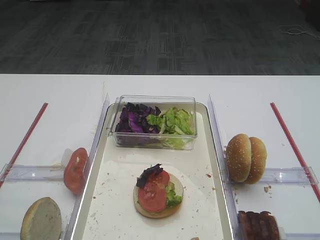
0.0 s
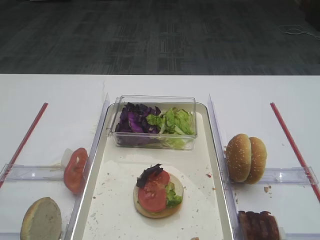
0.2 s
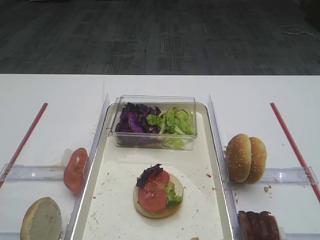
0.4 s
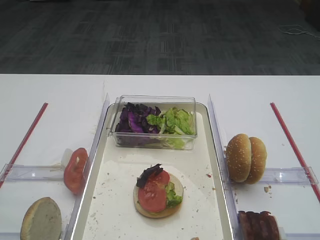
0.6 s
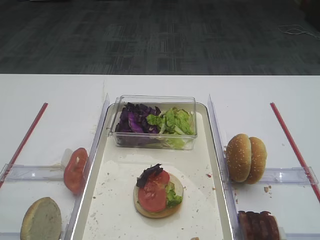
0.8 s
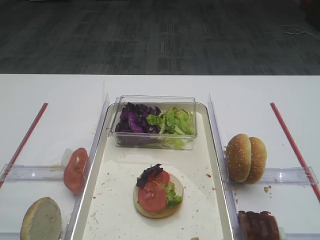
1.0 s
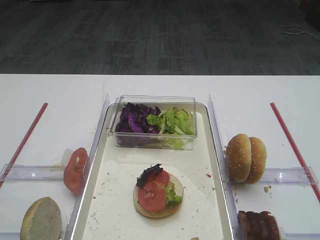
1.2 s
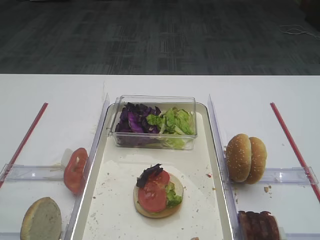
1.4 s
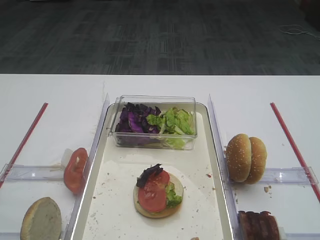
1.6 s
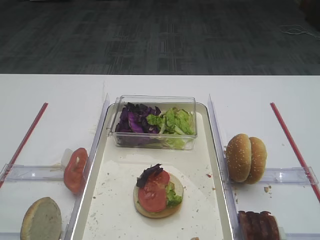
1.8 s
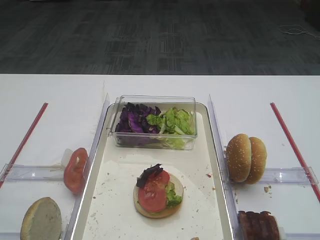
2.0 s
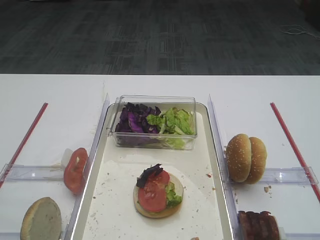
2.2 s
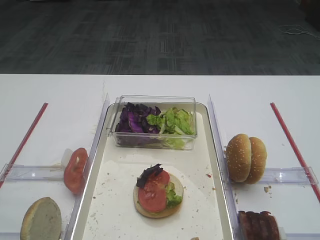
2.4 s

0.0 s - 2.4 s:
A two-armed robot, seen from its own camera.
0.0 s - 2.4 s: Neither gripper changes place.

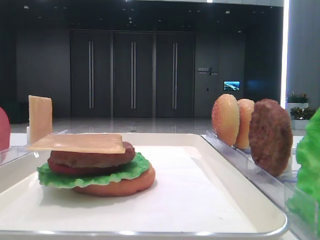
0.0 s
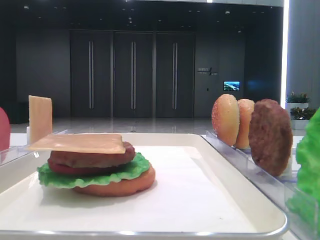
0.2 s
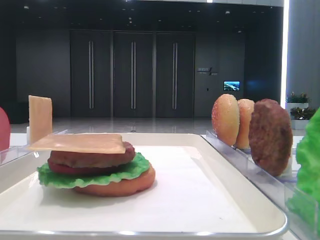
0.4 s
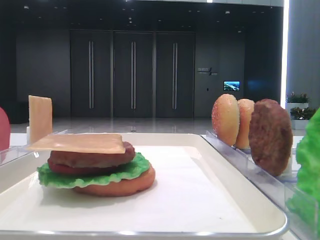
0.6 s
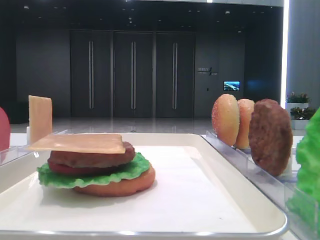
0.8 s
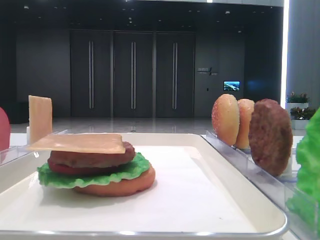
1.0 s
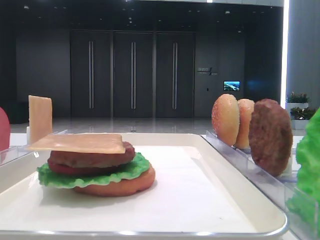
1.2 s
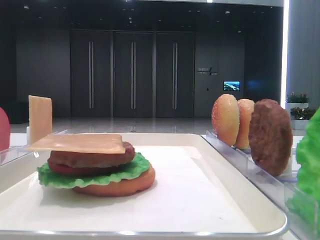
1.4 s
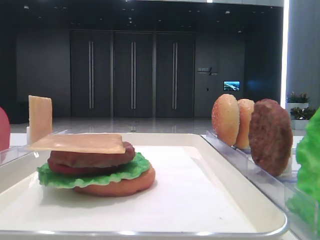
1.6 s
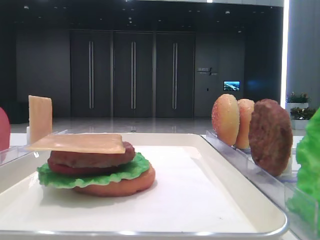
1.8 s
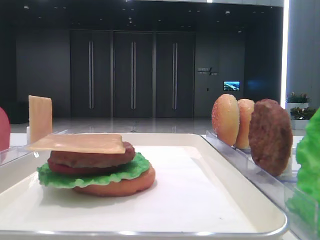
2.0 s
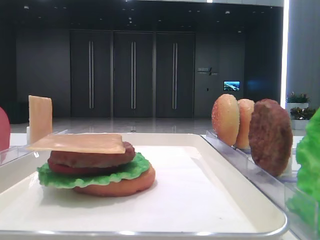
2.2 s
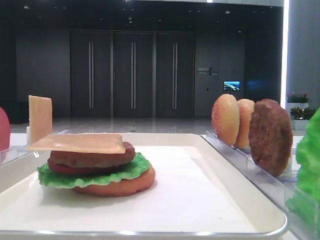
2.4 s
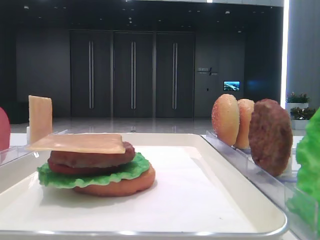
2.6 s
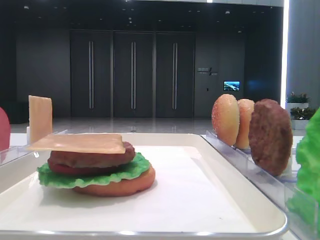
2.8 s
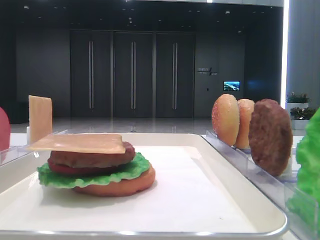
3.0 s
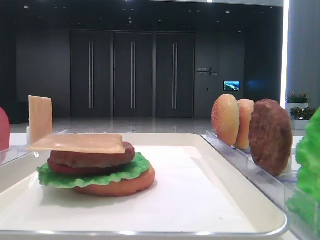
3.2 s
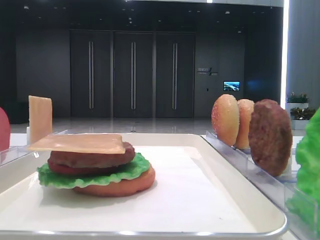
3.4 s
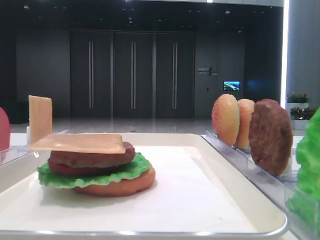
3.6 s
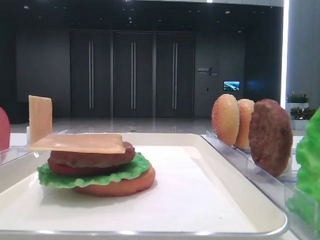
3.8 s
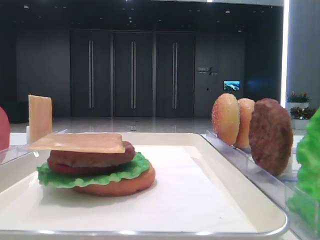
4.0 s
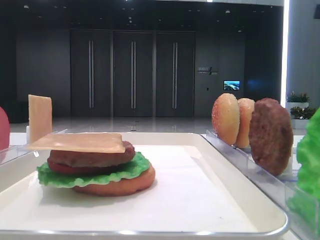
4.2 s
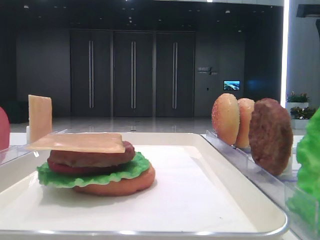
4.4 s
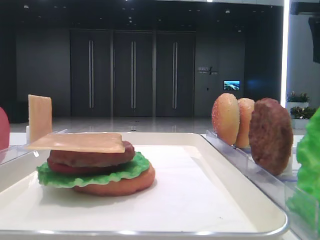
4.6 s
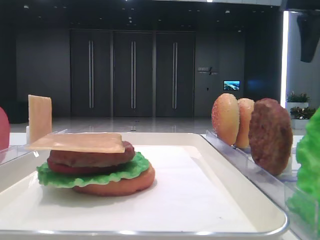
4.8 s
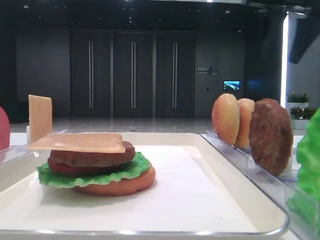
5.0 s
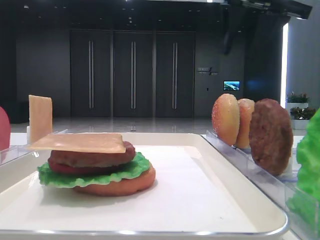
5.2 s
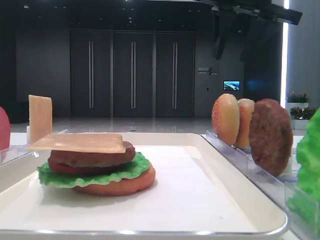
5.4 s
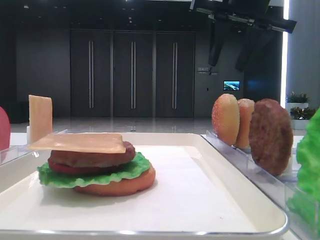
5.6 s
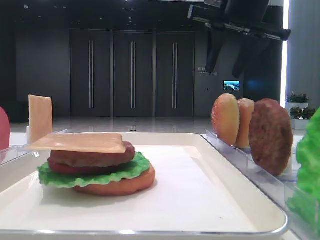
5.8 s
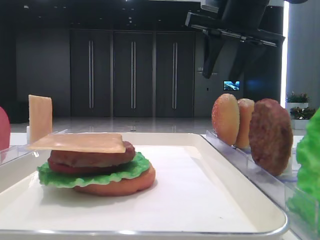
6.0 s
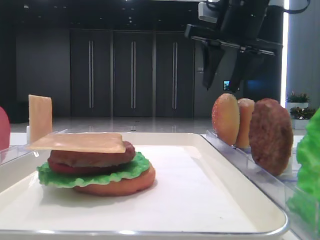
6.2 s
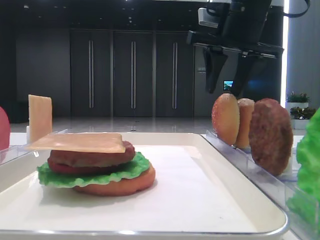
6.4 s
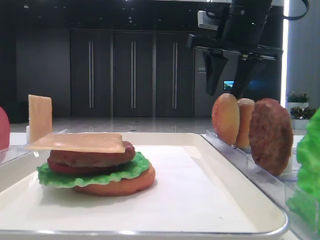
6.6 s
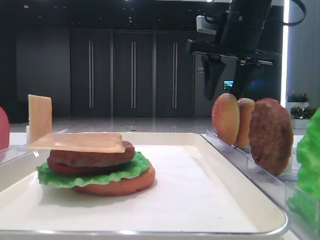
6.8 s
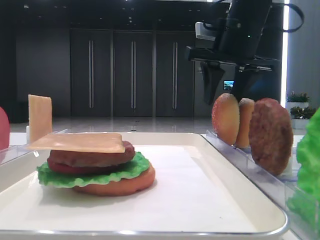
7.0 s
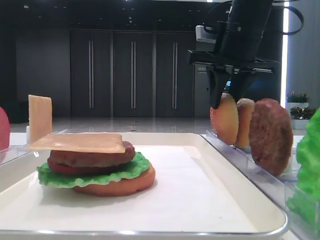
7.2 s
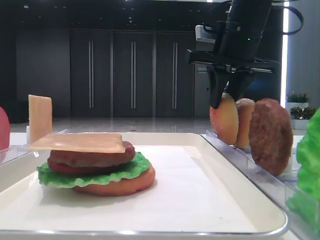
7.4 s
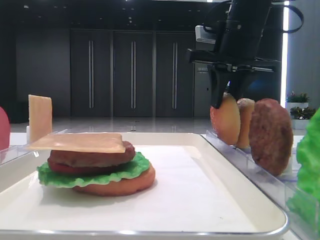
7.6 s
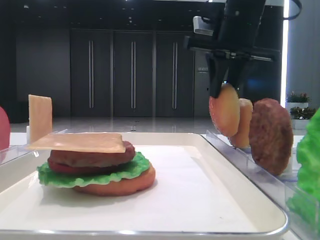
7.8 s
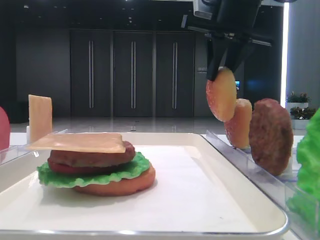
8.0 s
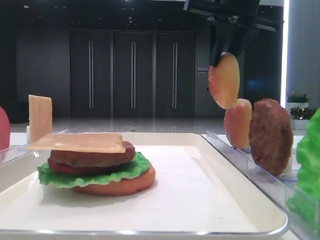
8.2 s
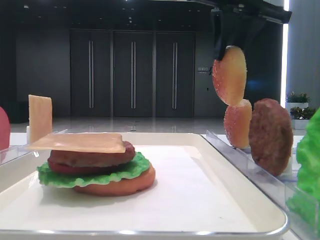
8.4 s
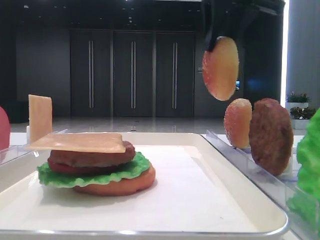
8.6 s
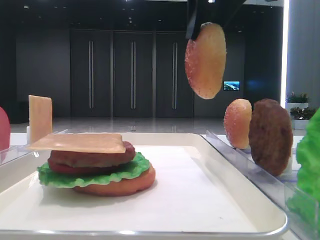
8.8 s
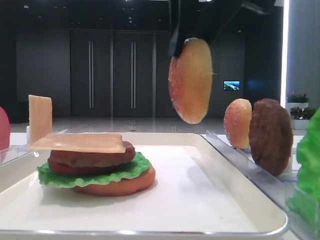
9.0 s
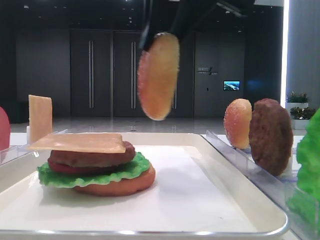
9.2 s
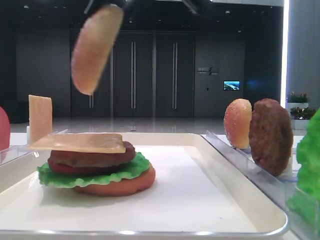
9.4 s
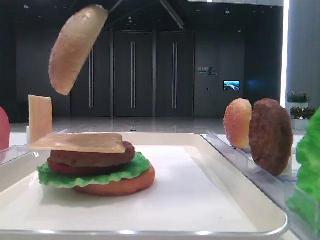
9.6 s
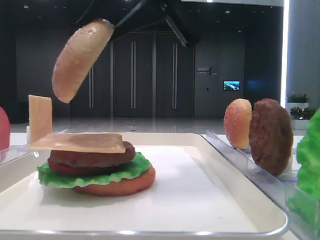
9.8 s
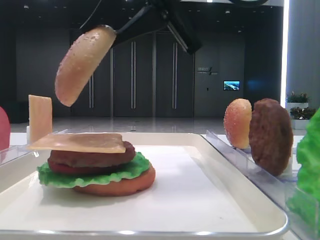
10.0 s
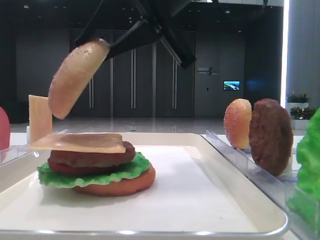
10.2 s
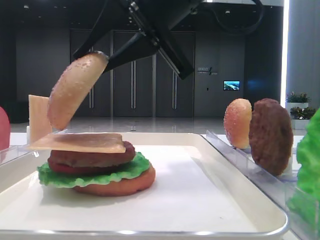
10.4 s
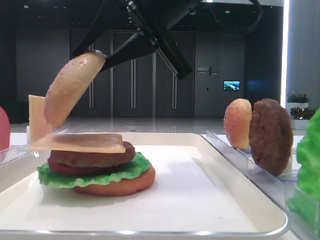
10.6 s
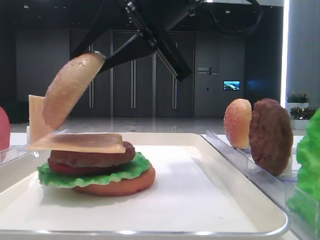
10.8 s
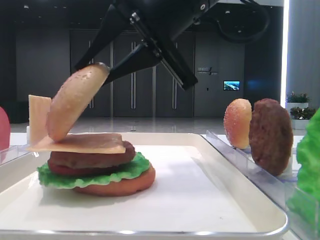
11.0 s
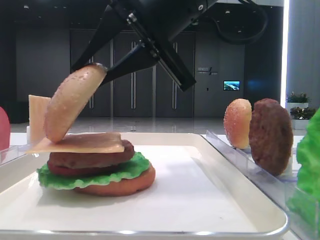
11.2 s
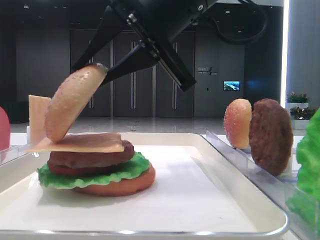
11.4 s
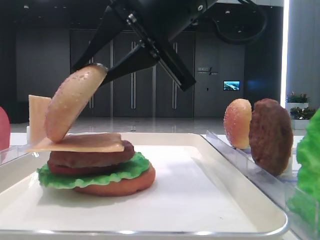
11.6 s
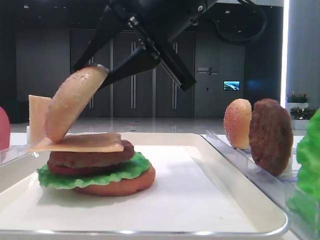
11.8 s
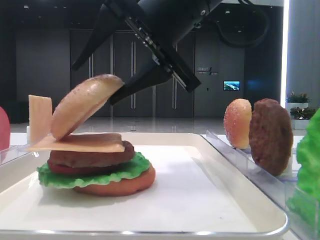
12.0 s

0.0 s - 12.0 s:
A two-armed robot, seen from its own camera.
Step, 0.0 s - 7.0 s: Pick up the top bread slice with the right hand.
1.6 s - 3.0 s: Neither gripper changes place.
3.0 s - 4.4 s: The right gripper is displaced forward by roughly 35 cm.
4.4 s - 6.0 s: The right gripper goes about 15 cm to the left.
6.0 s - 7.6 s: The right gripper closes its fingers.
7.6 s - 9.0 s: The right gripper travels backward, to the left and upward by about 15 cm.
9.0 s - 10.4 s: The right gripper shifts about 5 cm downward.
10.4 s - 12.0 s: The right gripper opens its fingers.

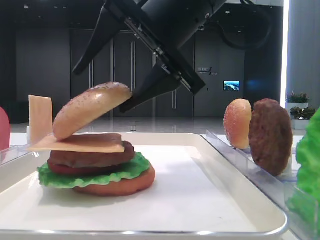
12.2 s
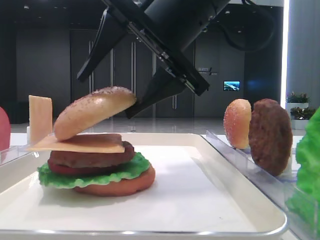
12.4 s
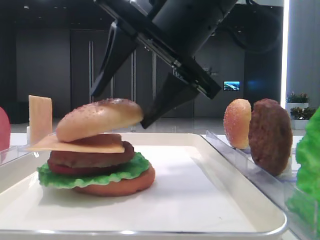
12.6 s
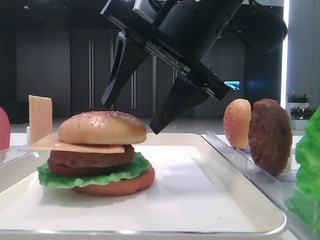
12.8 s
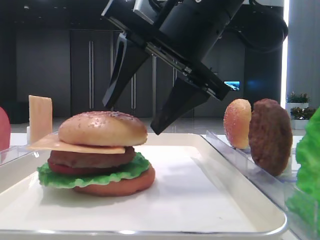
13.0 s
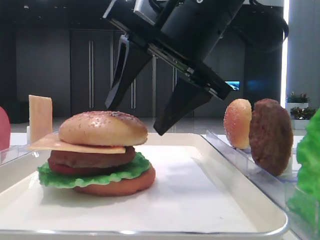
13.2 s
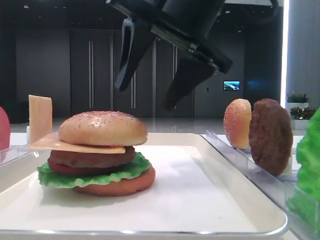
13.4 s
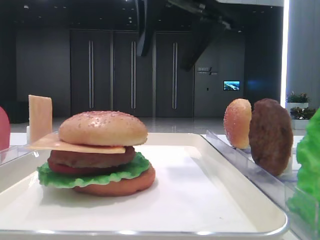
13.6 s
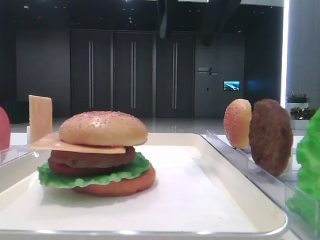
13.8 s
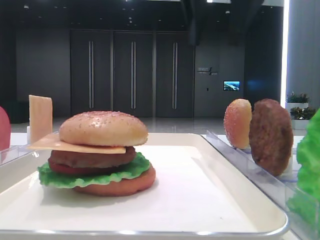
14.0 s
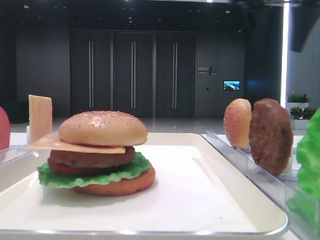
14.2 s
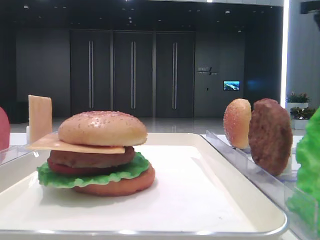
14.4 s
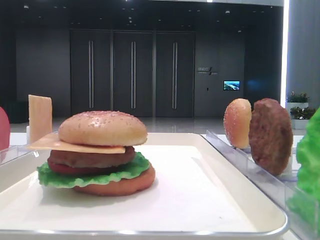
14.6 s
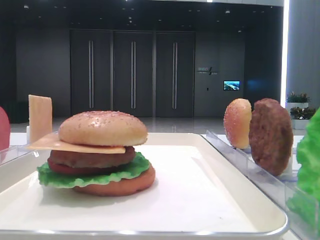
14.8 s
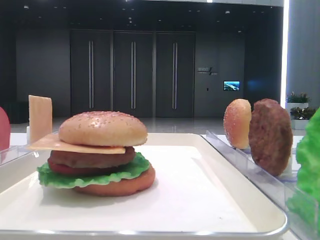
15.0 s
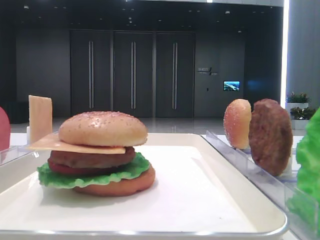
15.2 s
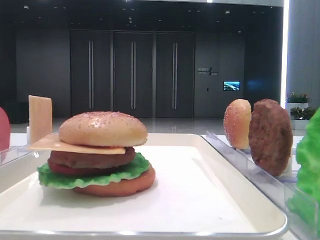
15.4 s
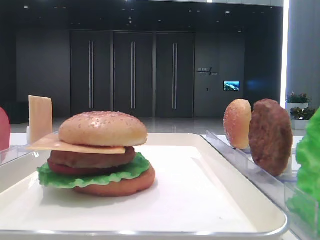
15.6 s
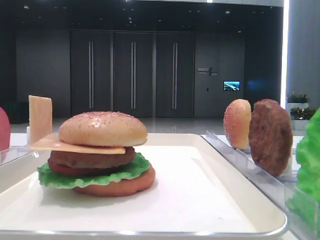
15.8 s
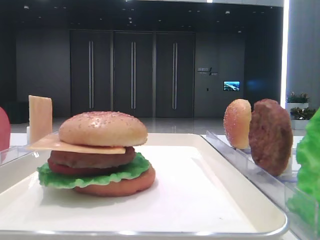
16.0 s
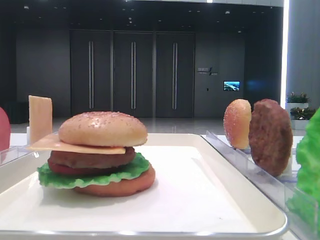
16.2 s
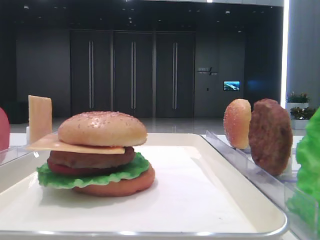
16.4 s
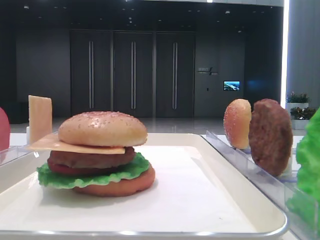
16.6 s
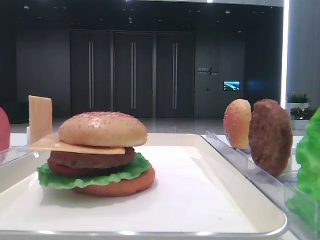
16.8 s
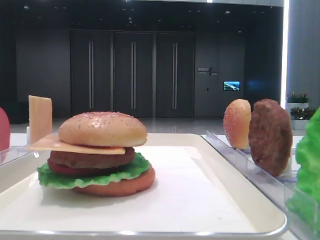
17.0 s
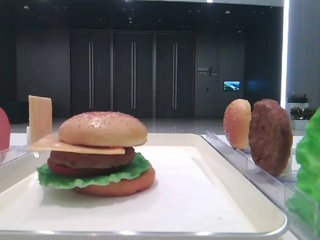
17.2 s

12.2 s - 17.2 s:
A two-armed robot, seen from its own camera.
12.2 s - 13.8 s: The right gripper heads upward, covering about 10 cm.
13.8 s - 15.6 s: The right gripper is displaced to the right and backward by about 35 cm.

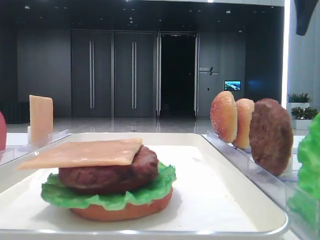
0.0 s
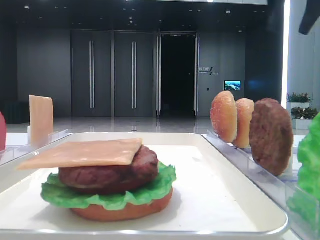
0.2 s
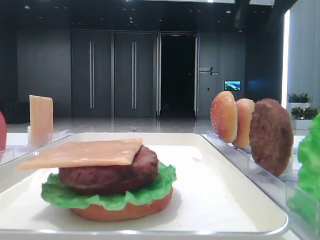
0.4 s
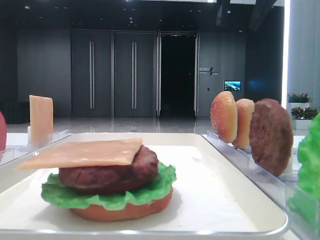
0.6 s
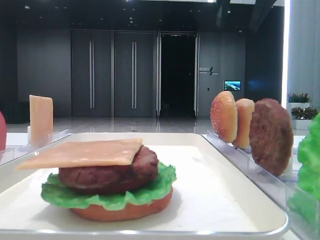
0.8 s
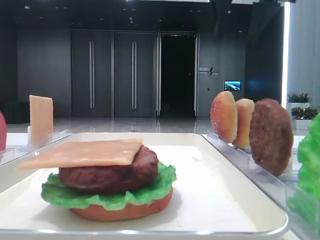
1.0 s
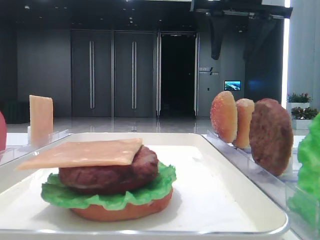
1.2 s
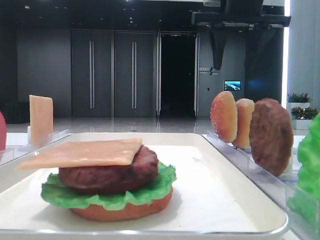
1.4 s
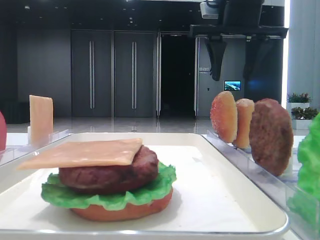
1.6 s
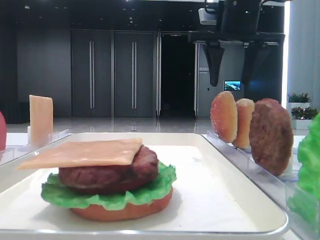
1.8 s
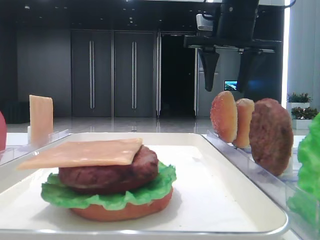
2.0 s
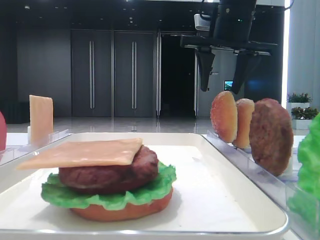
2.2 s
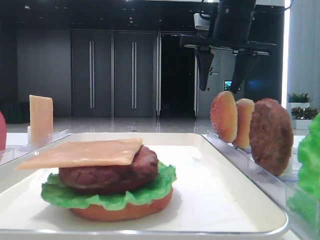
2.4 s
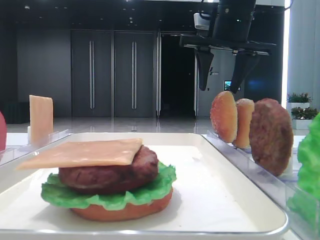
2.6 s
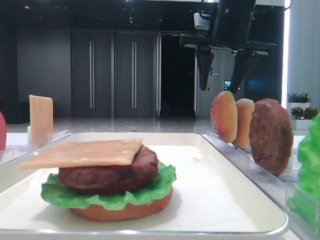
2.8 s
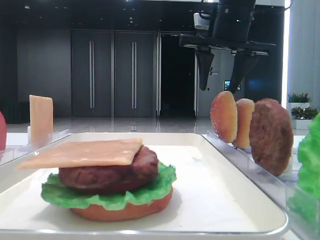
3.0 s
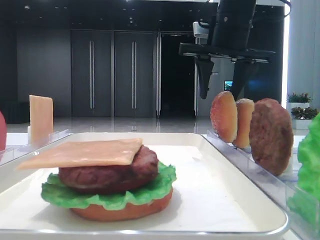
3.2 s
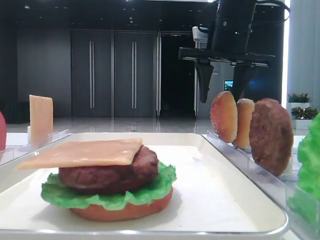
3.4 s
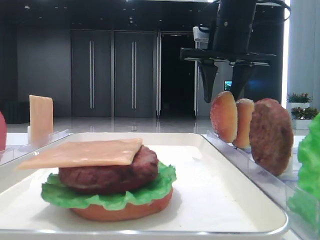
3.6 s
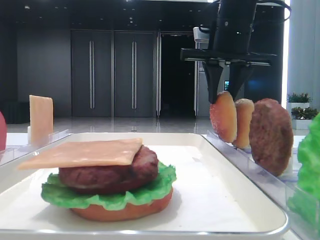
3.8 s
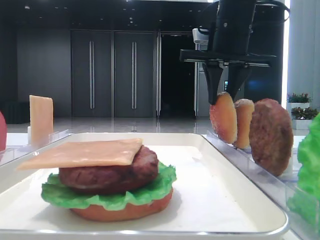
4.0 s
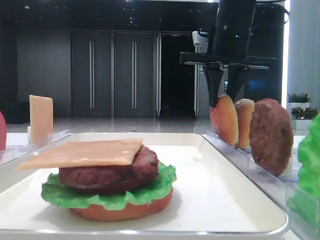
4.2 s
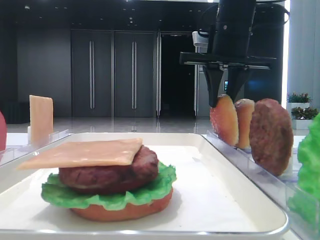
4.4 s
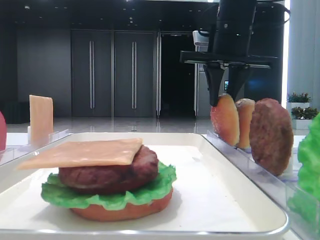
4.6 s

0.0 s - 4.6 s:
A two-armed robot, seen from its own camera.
Step, 0.0 s - 3.8 s: Pick up the top bread slice with the right hand.
0.0 s - 1.6 s: The right gripper shifts roughly 15 cm to the left and downward.
1.6 s - 3.0 s: The grippers move only a little.
3.0 s - 4.6 s: The right gripper closes.
